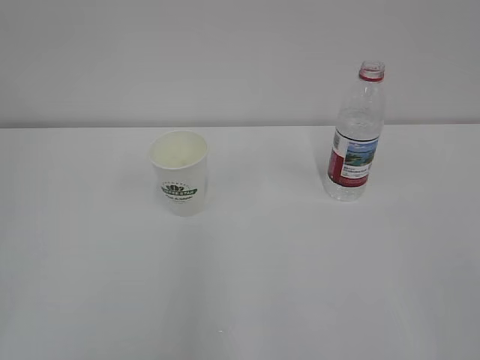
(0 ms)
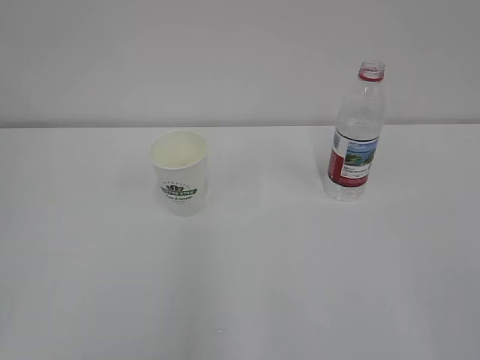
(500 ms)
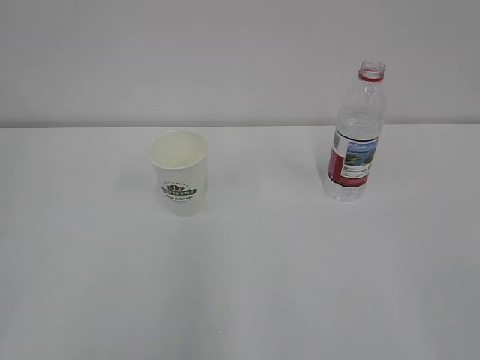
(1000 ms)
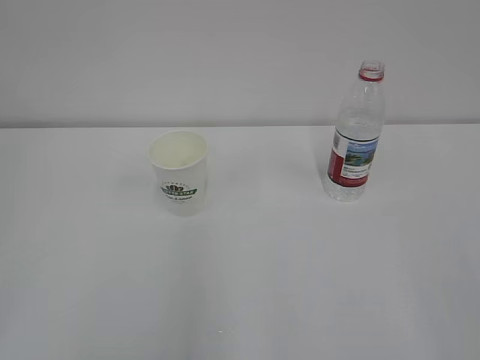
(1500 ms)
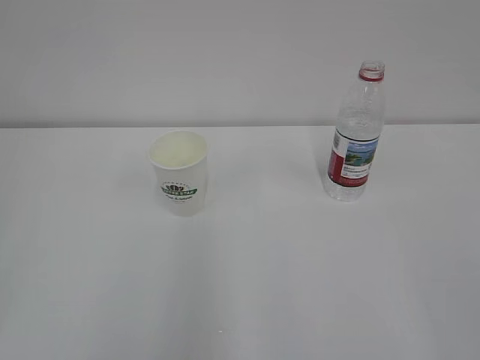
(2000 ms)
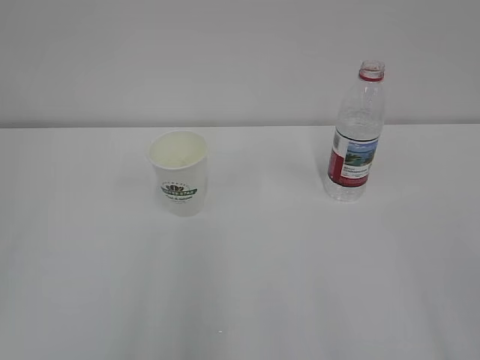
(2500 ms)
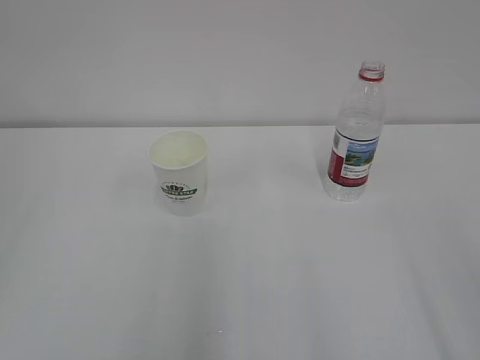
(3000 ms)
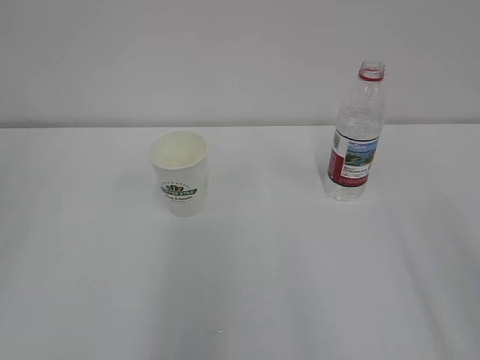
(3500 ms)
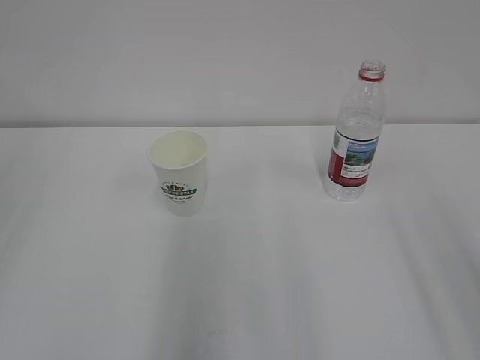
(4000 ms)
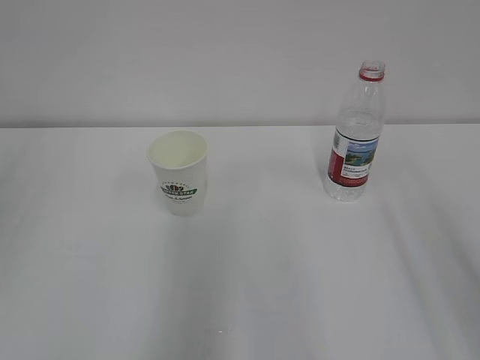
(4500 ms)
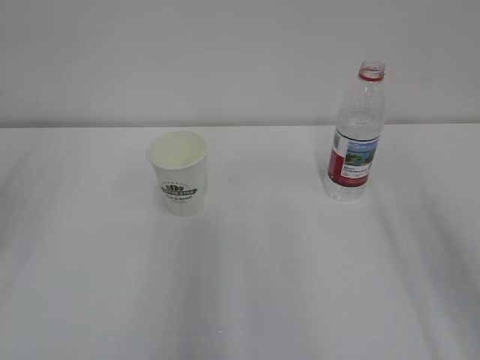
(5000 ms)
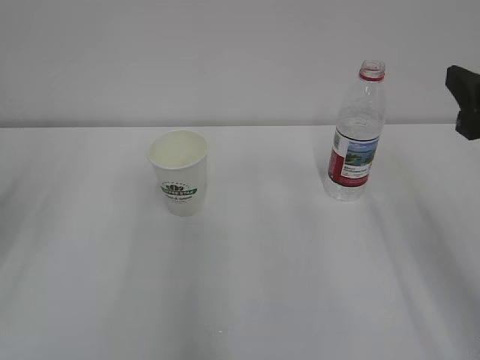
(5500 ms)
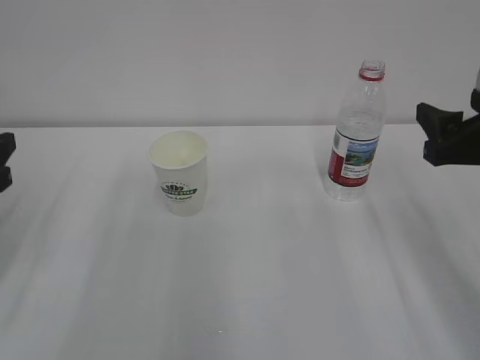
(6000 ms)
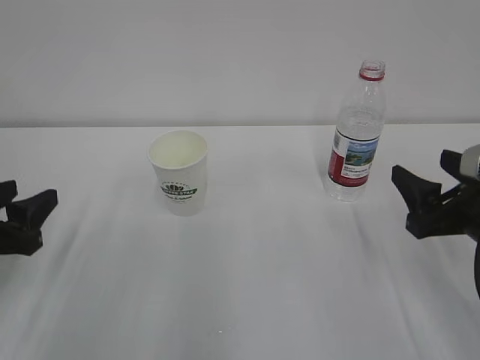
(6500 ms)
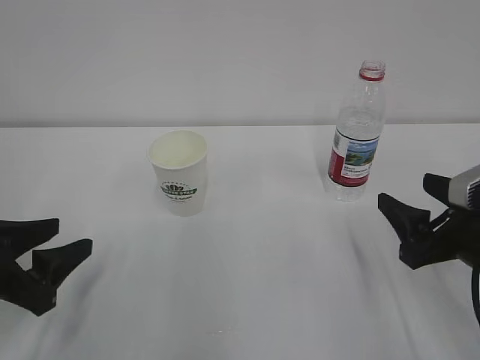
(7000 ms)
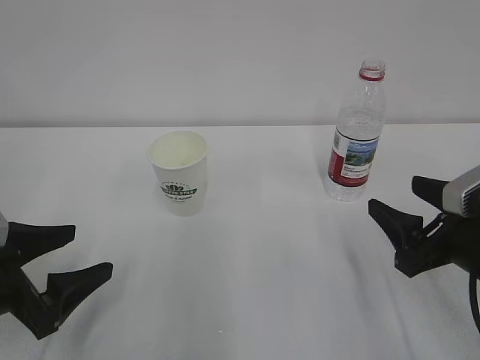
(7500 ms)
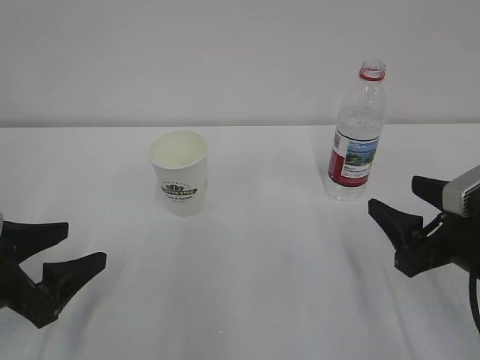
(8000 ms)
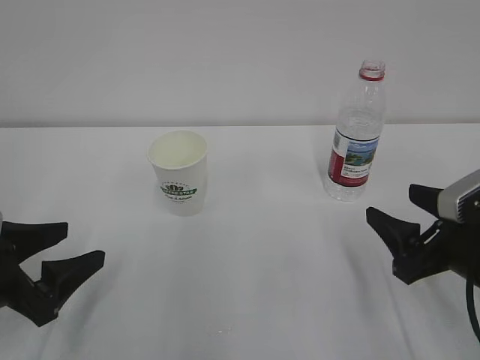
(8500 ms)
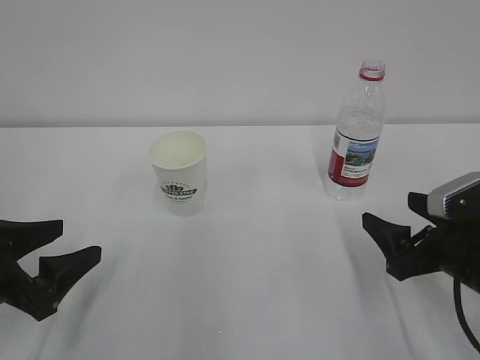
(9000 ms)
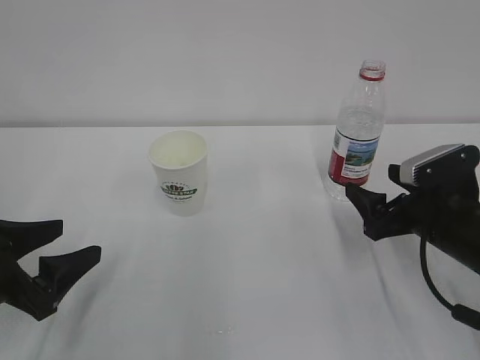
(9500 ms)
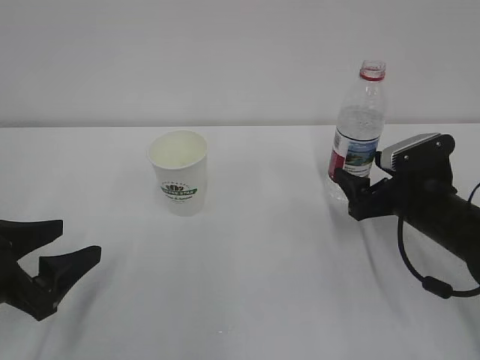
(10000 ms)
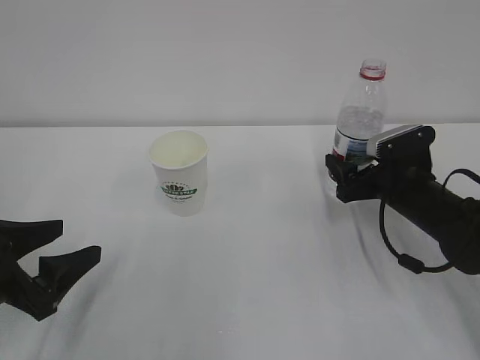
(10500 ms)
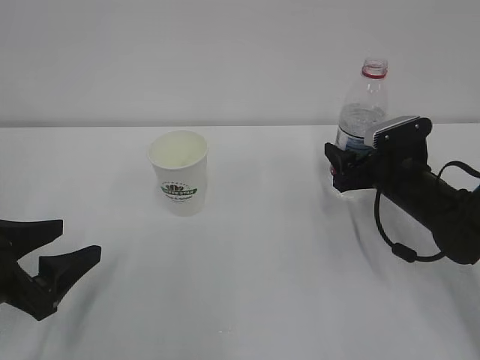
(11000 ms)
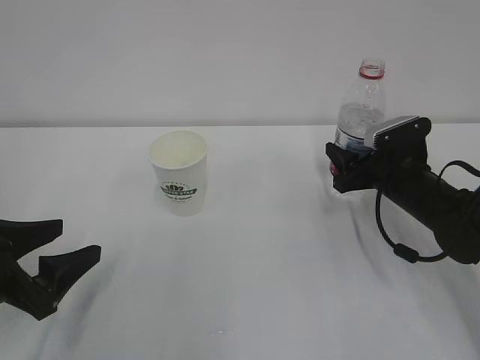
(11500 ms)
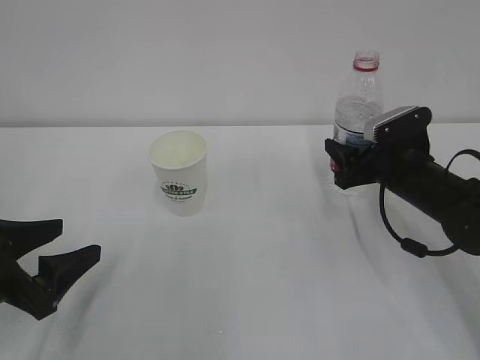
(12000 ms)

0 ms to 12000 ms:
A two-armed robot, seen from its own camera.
4000 ms to 6000 ms: The right gripper is displaced forward and downward by about 20 cm.
6000 ms to 8000 ms: The left gripper is displaced downward and backward by some 10 cm, and opens up. Meanwhile the right gripper travels downward by roughly 10 cm.
8000 ms to 10000 ms: The right gripper travels forward by approximately 10 cm, and opens its fingers.
10000 ms to 12000 ms: The right gripper is displaced forward by roughly 5 cm, and closes up.

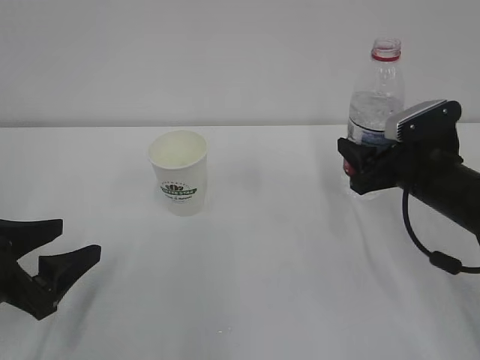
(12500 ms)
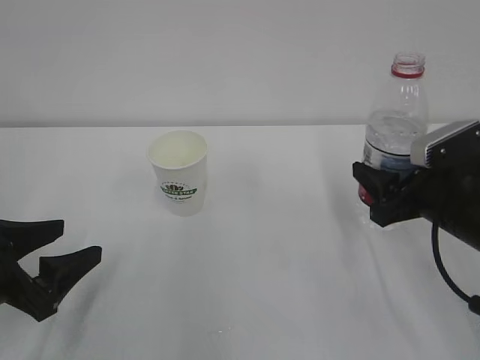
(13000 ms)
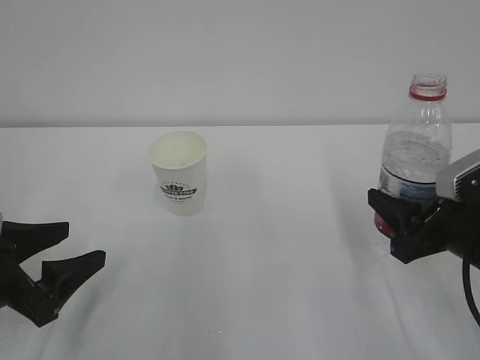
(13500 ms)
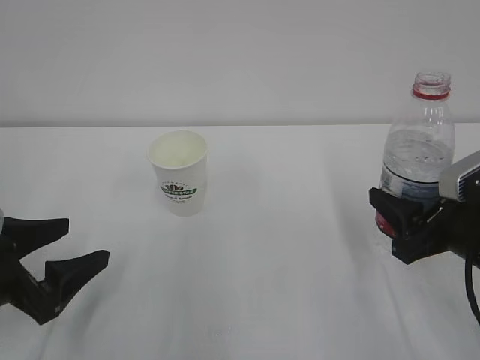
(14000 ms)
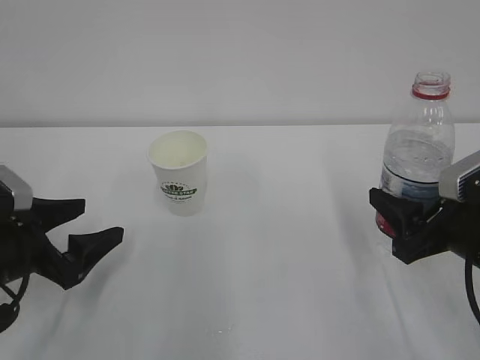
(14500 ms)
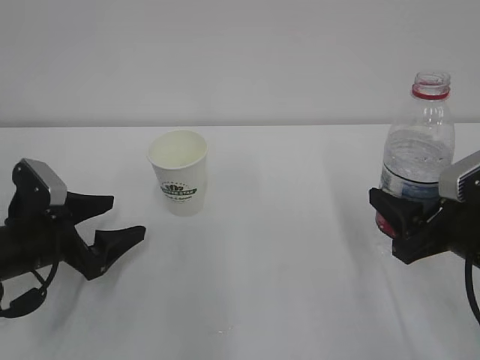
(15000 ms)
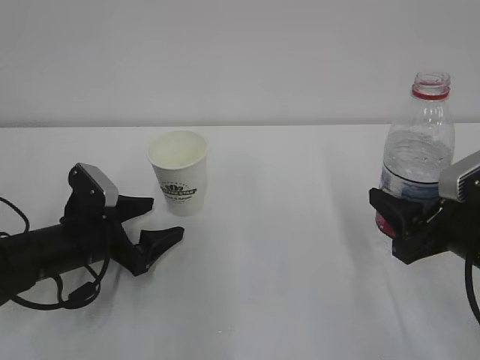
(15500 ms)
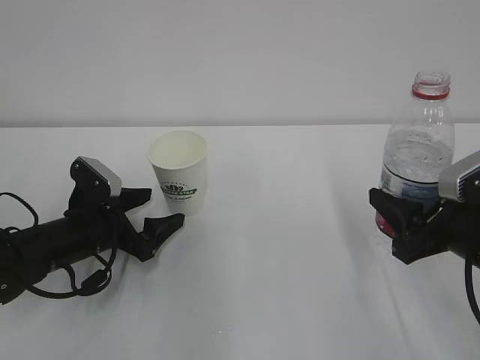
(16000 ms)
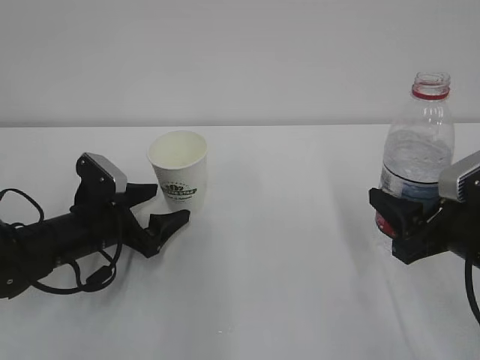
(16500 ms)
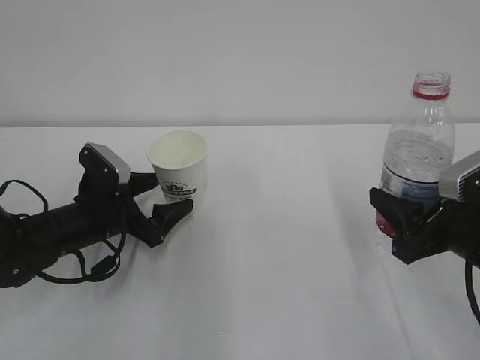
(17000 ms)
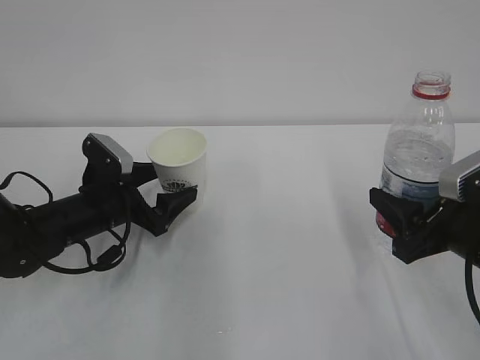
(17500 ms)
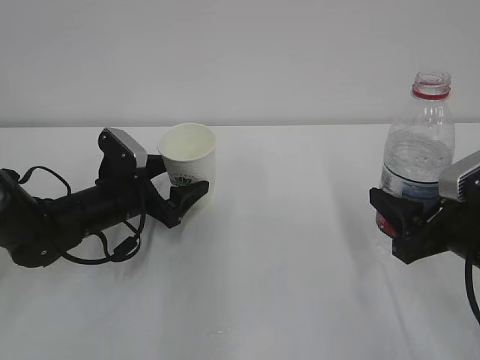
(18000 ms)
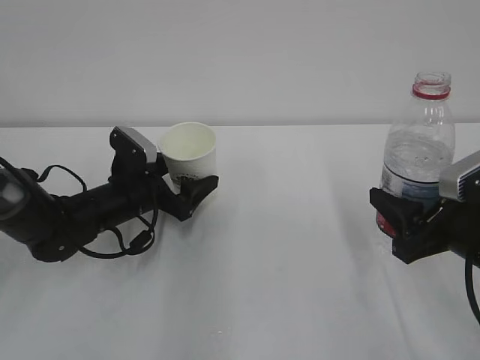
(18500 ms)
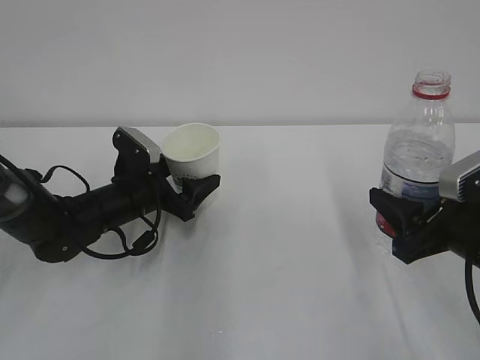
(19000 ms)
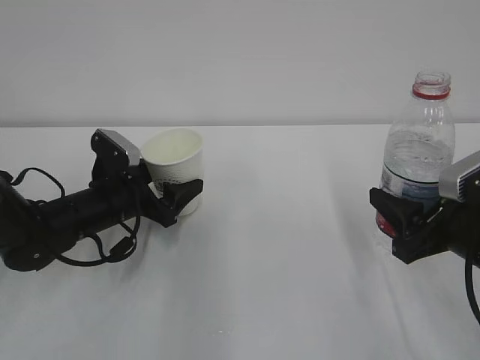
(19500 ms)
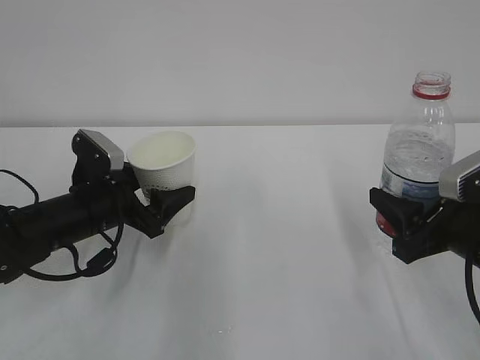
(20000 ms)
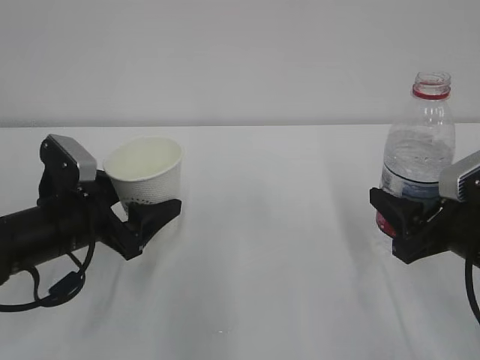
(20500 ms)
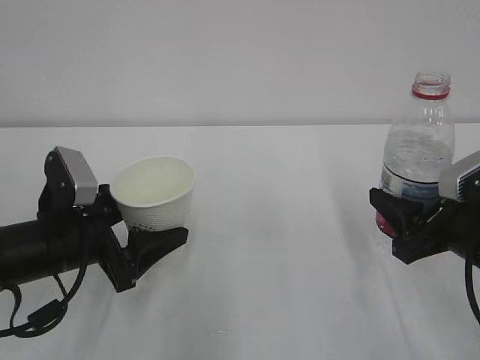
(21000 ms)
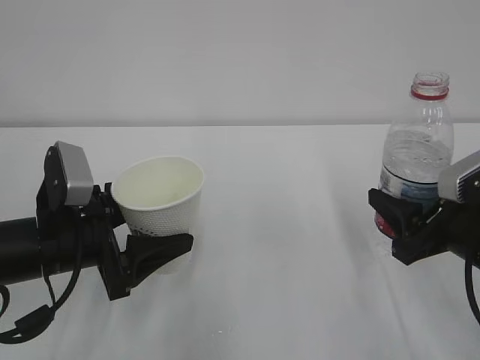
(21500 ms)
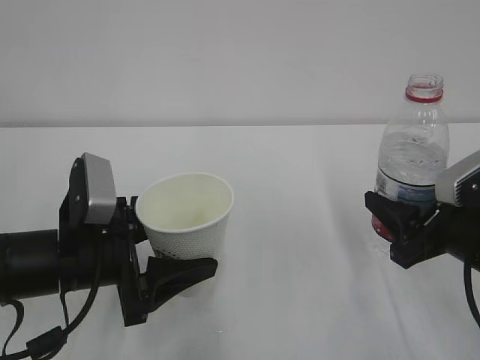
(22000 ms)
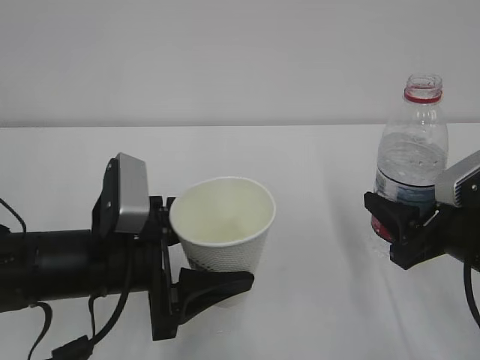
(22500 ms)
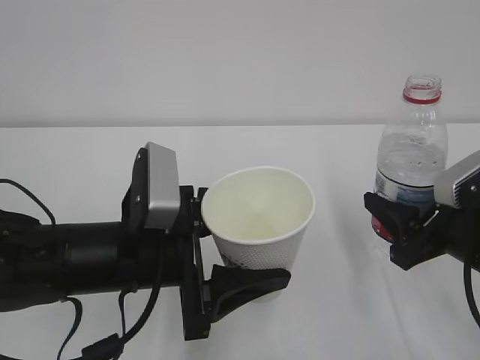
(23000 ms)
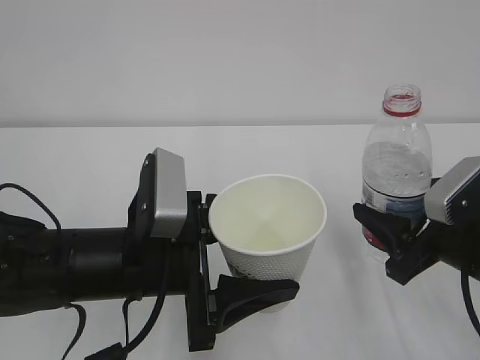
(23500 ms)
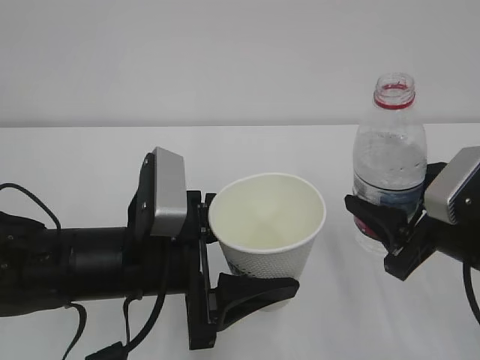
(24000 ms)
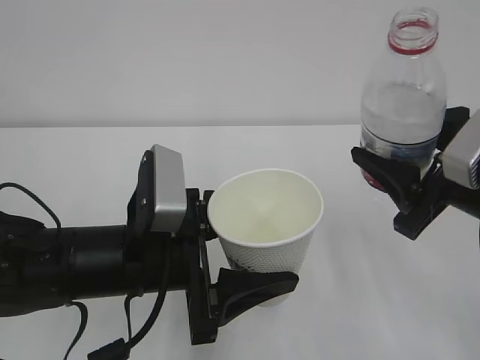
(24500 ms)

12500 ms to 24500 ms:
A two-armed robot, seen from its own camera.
12500 ms to 14500 ms: The right gripper shifts some 10 cm backward; the left gripper opens up.
14500 ms to 16500 ms: The left gripper heads forward, to the right and downward, covering approximately 10 cm.
16500 ms to 18500 ms: The left gripper goes approximately 5 cm forward.
18500 ms to 20500 ms: The left gripper travels backward and upward by some 10 cm, and closes up.
20500 ms to 22500 ms: The left gripper shifts roughly 10 cm to the right and backward.
22500 ms to 24500 ms: The right gripper shifts approximately 5 cm upward.

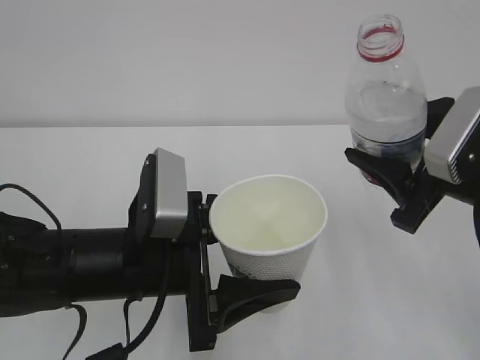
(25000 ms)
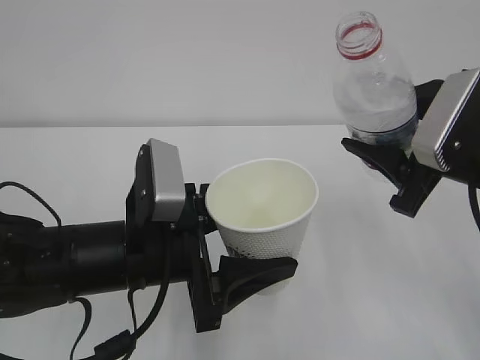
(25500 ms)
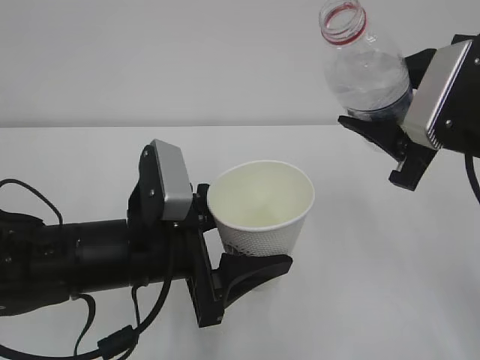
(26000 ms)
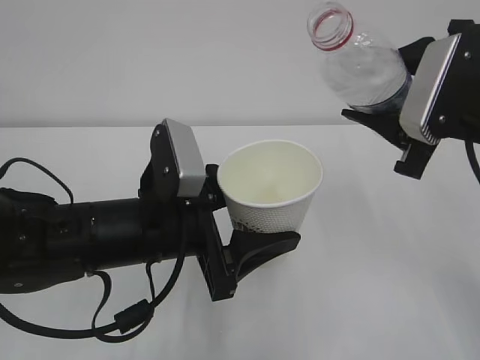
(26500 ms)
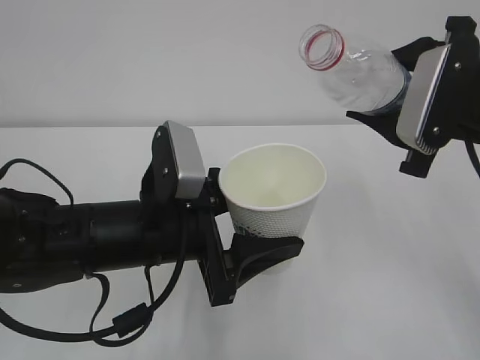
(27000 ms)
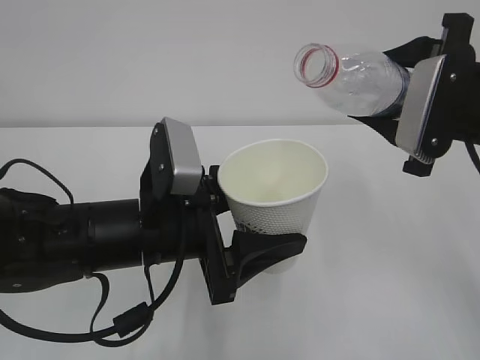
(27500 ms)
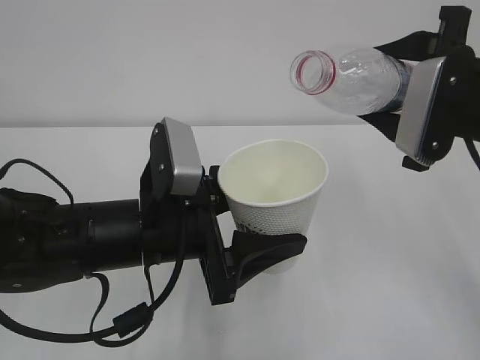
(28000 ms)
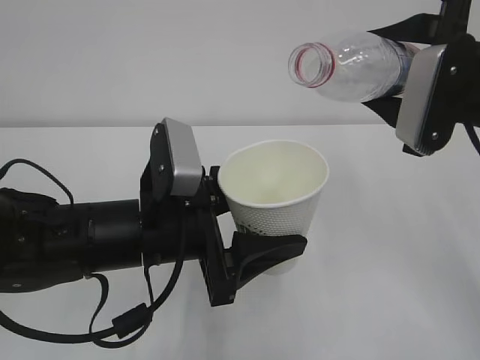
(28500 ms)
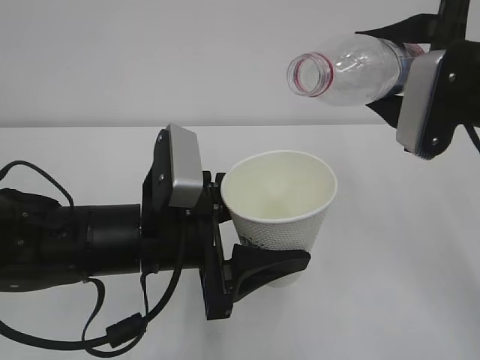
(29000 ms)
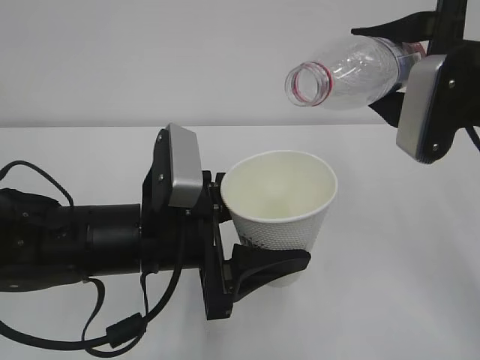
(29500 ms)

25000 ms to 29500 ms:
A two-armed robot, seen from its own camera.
25000 ms to 27000 ms: The right gripper ends up approximately 5 cm from where it was.
